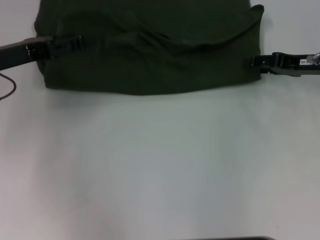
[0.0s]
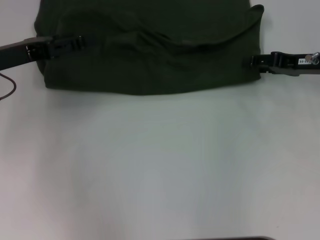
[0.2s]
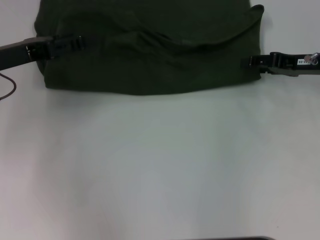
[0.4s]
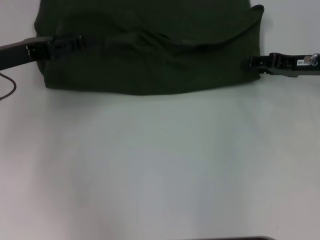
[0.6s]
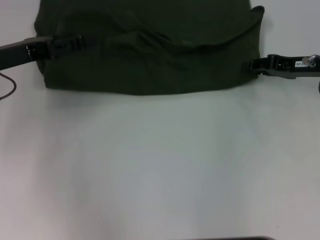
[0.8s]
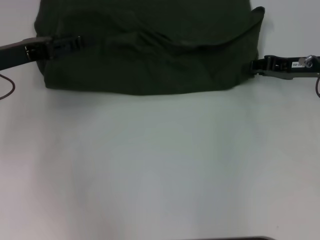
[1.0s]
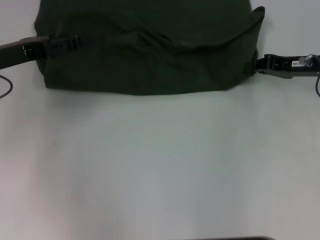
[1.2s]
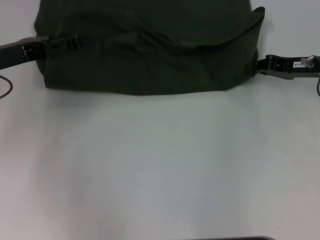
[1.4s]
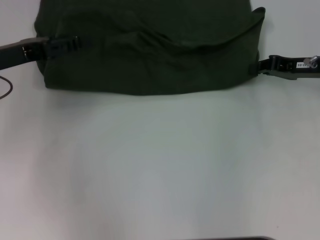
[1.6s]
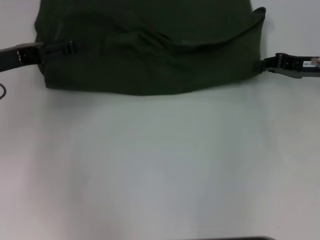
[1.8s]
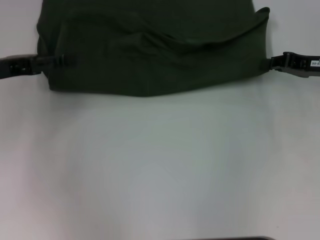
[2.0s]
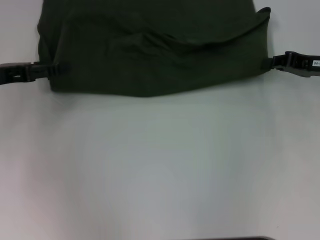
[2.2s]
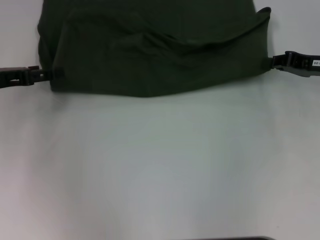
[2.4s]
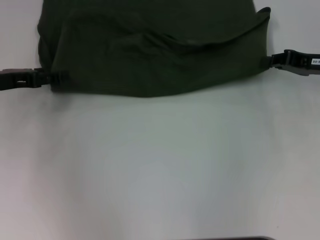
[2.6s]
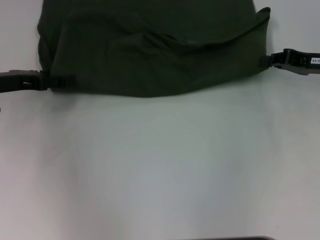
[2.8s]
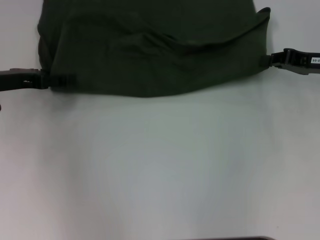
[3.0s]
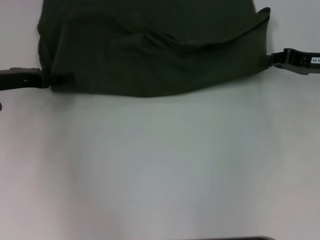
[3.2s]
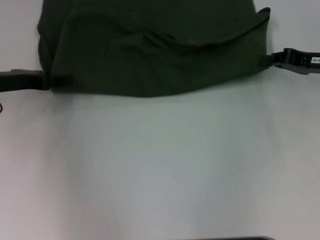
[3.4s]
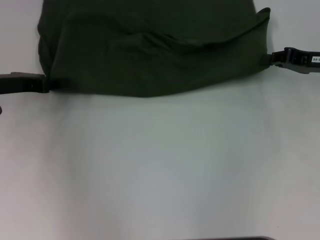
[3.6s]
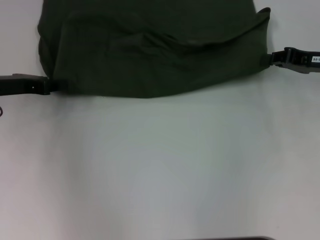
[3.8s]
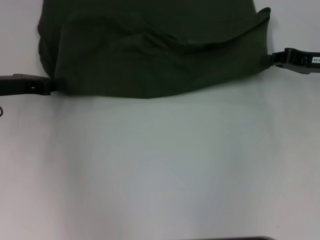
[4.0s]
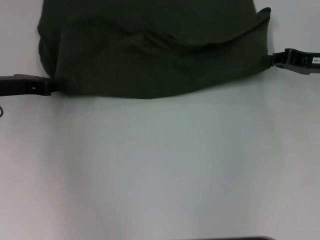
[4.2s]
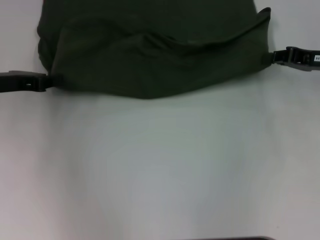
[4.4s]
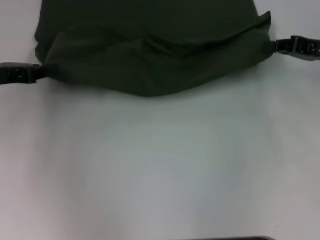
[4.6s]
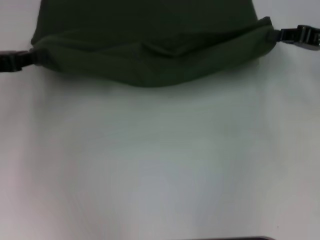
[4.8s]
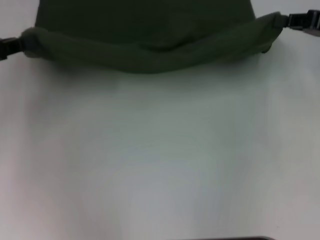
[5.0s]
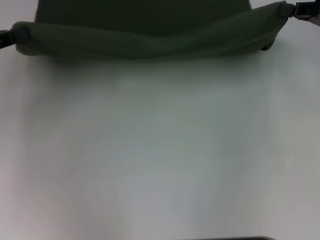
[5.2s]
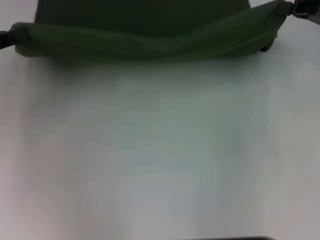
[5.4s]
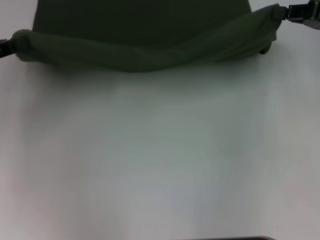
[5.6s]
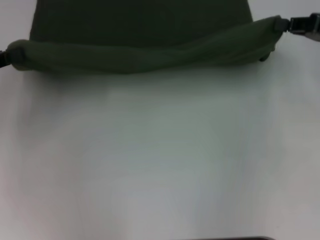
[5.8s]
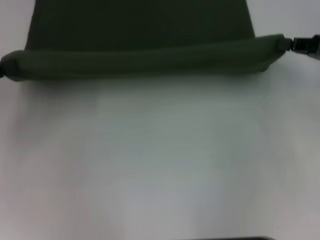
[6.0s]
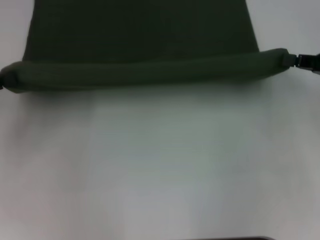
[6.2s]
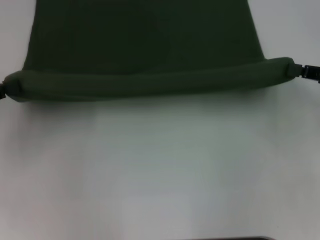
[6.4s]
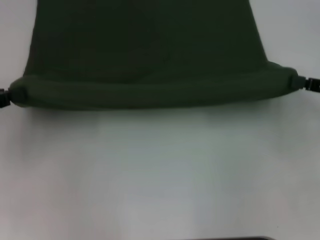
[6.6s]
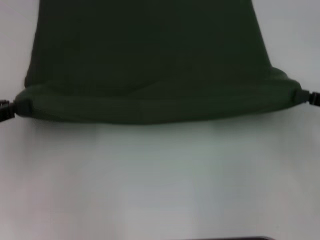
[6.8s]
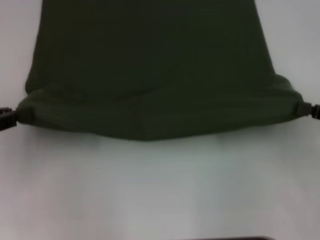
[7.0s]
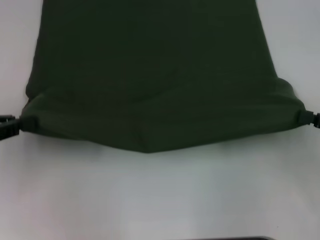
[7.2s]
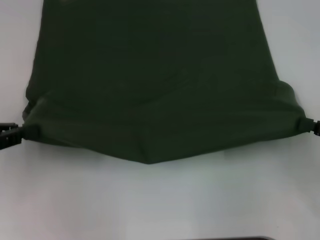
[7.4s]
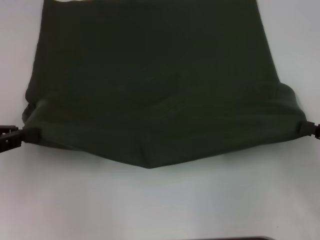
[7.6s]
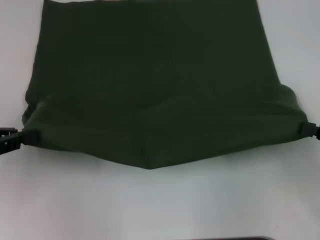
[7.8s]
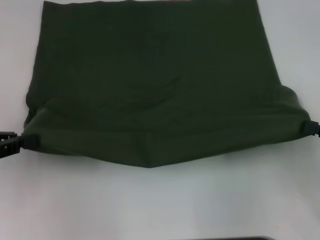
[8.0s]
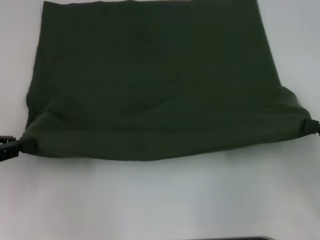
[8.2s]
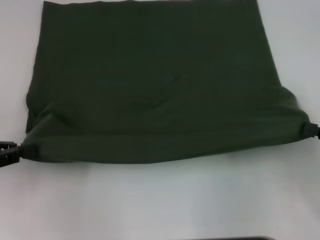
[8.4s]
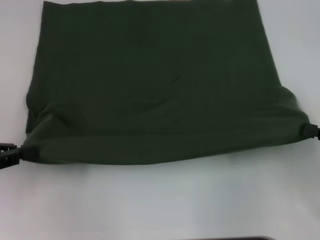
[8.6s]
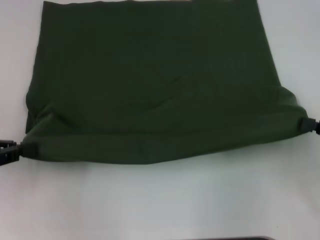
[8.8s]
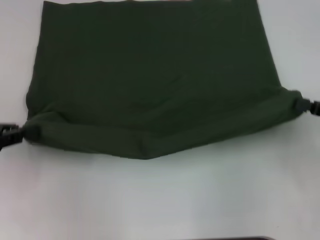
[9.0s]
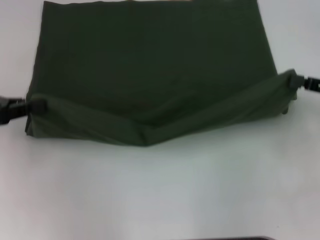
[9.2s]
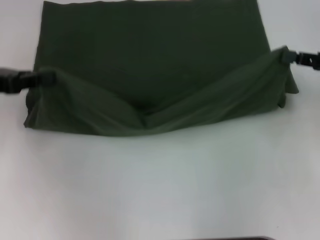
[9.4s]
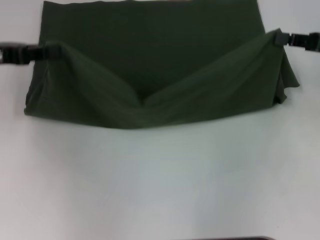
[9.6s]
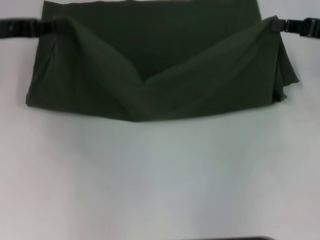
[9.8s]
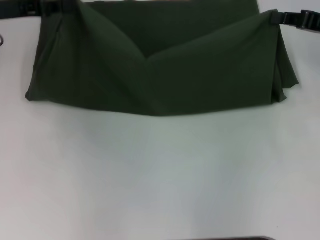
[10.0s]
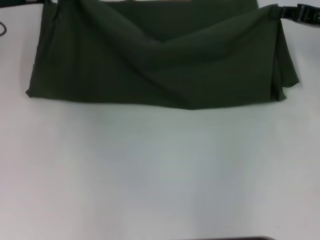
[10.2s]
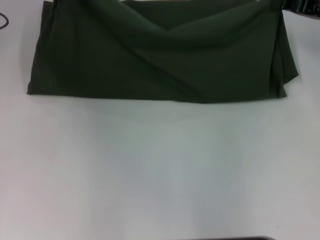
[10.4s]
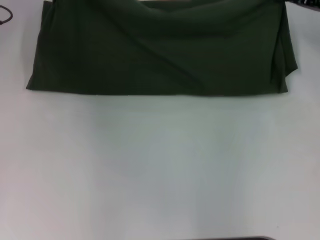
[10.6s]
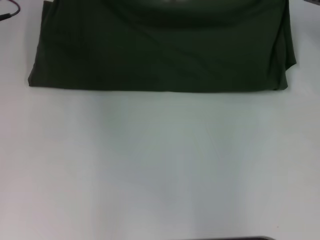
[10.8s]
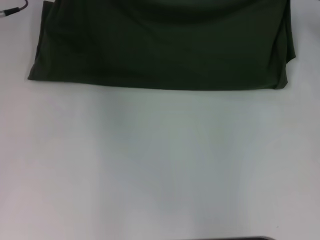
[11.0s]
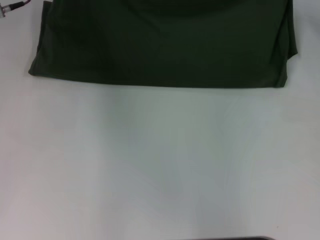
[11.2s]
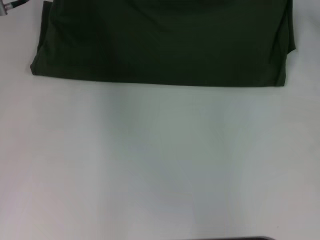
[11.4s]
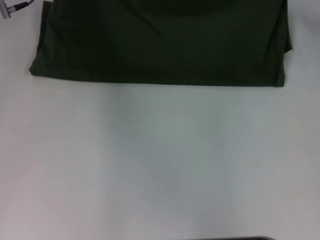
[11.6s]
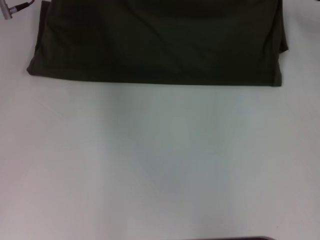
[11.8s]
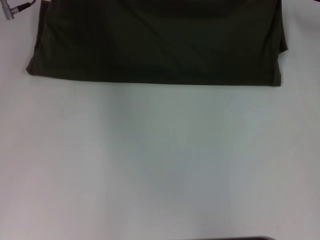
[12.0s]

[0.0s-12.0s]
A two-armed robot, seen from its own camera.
Step, 0.0s to 8.6s: Pull the clothes with your left hand.
Step, 0.0s to 8.6s: Pull the clothes with your right hand.
0.0s to 1.6s: The right gripper closes up.
3.0s to 4.4s: The left gripper closes.
4.4s to 6.0s: The left gripper heads to the left and backward, covering some 10 cm. Meanwhile the right gripper moves about 5 cm.
6.0s to 7.6s: The right gripper shifts roughly 10 cm backward.
7.6s to 9.0s: The grippers stay close to where they were, moving slightly.
9.0s to 10.4s: The left gripper shifts some 20 cm forward and to the right. The right gripper travels forward by approximately 15 cm.
10.4s to 12.0s: The left gripper ends up about 5 cm from where it was.

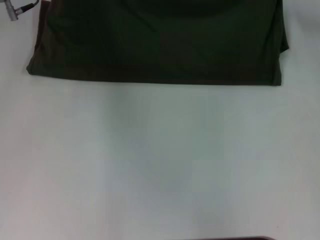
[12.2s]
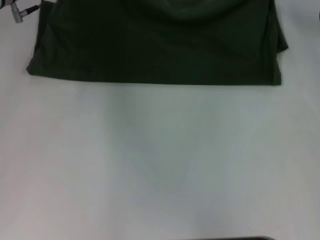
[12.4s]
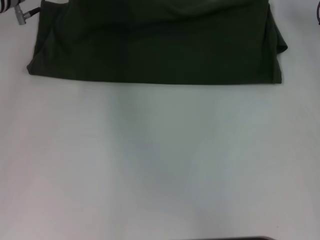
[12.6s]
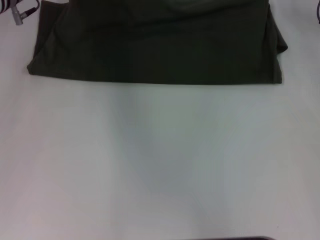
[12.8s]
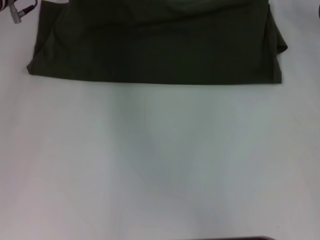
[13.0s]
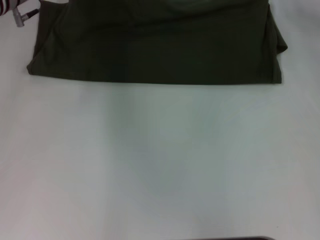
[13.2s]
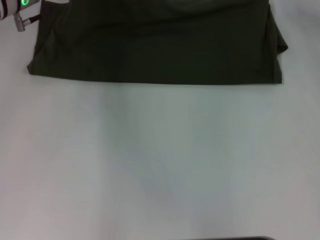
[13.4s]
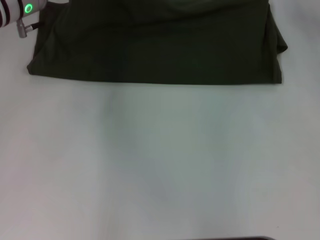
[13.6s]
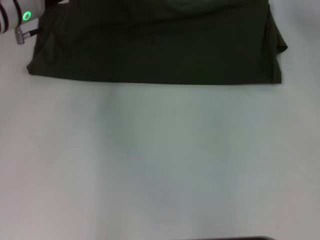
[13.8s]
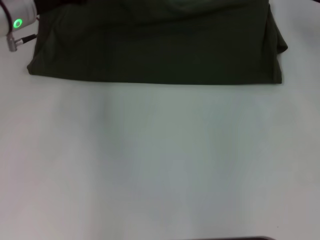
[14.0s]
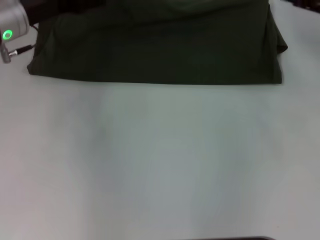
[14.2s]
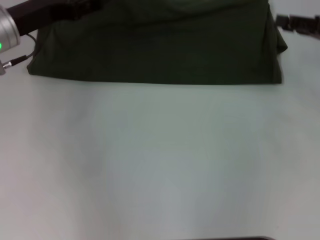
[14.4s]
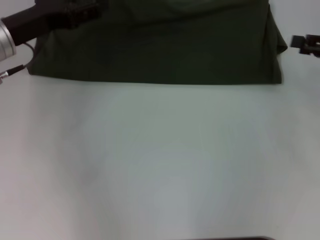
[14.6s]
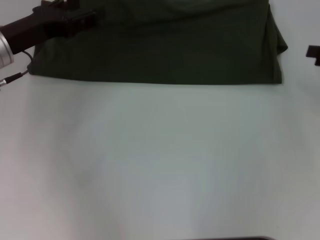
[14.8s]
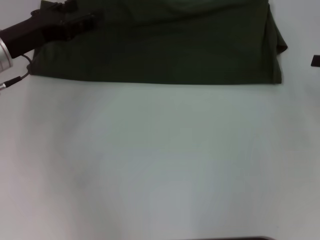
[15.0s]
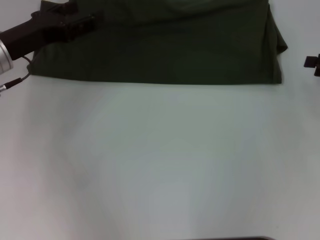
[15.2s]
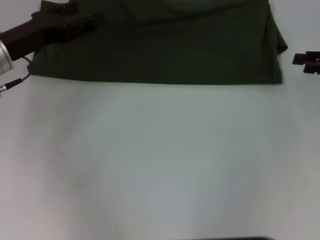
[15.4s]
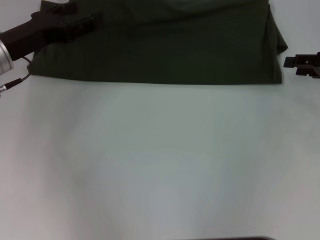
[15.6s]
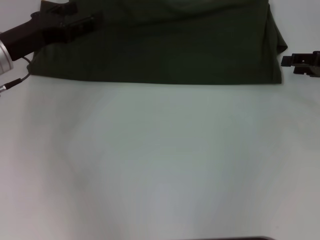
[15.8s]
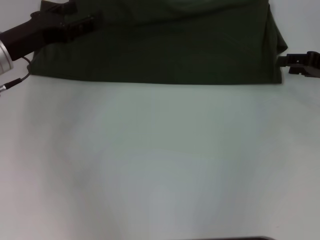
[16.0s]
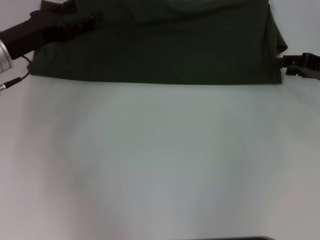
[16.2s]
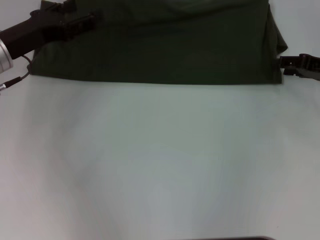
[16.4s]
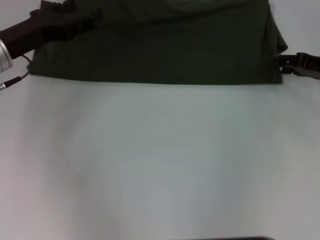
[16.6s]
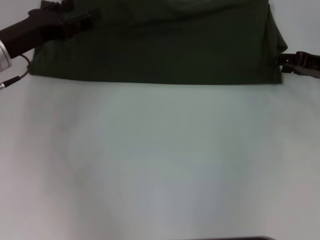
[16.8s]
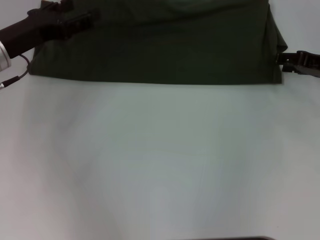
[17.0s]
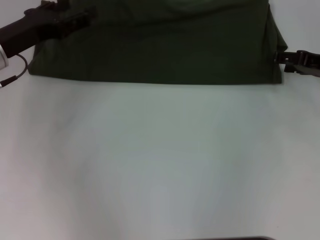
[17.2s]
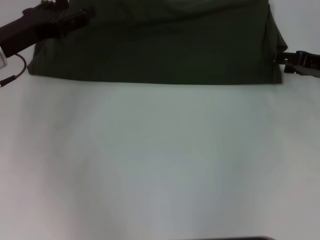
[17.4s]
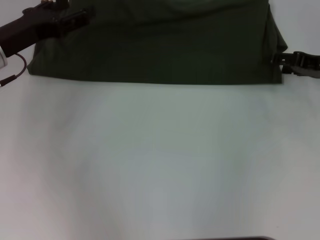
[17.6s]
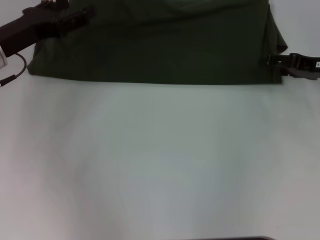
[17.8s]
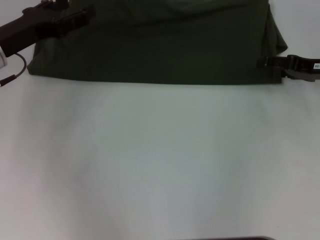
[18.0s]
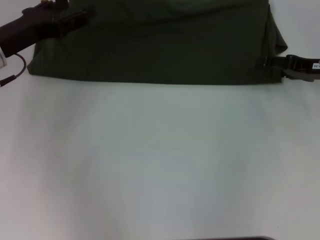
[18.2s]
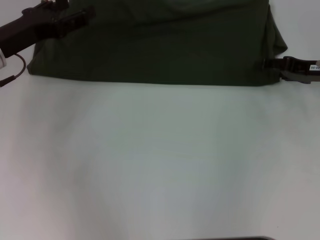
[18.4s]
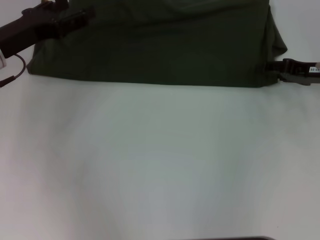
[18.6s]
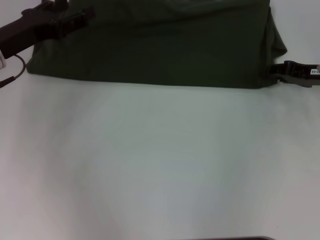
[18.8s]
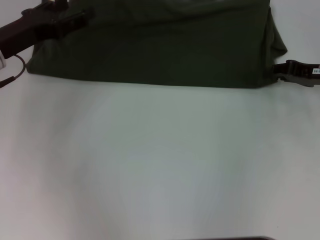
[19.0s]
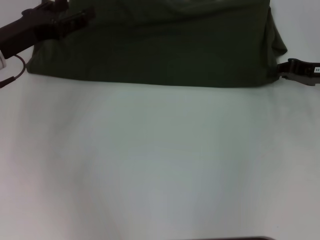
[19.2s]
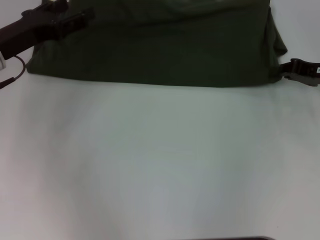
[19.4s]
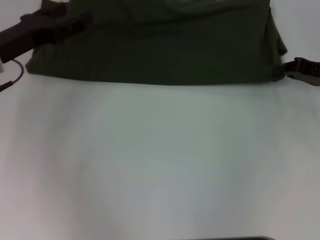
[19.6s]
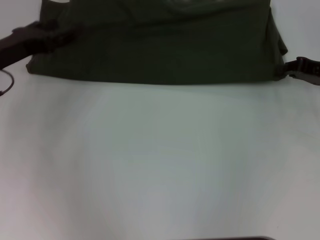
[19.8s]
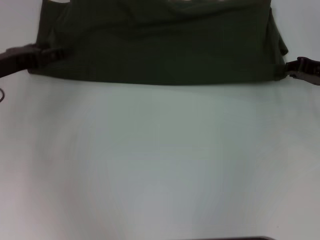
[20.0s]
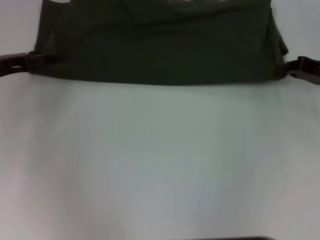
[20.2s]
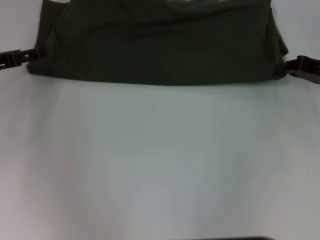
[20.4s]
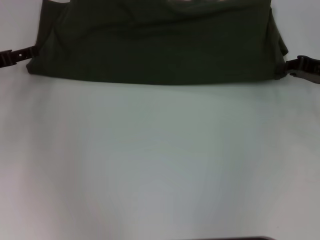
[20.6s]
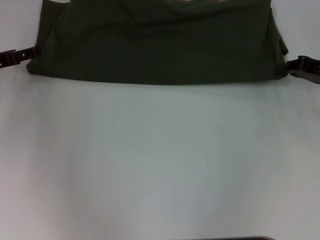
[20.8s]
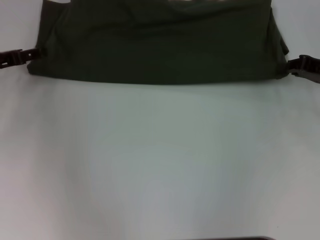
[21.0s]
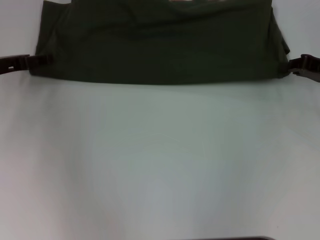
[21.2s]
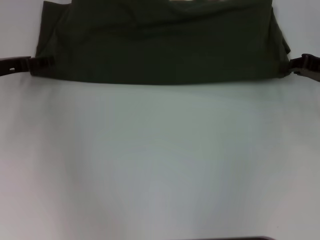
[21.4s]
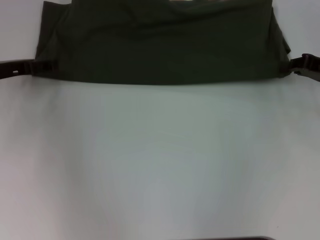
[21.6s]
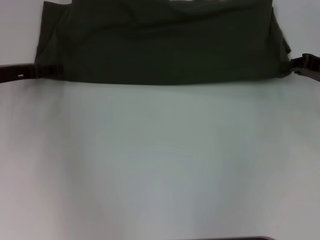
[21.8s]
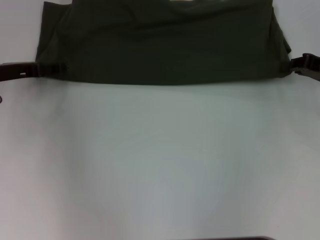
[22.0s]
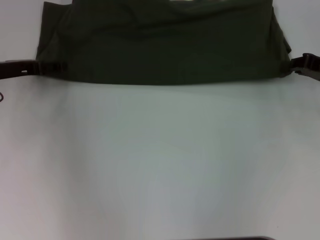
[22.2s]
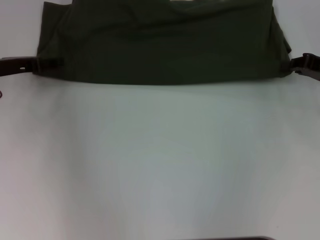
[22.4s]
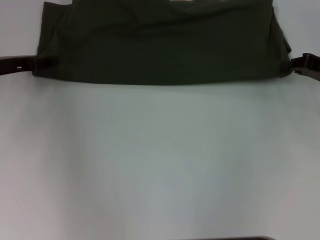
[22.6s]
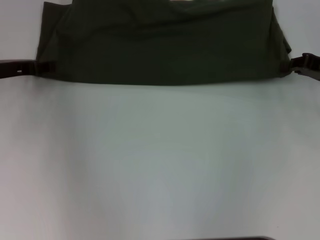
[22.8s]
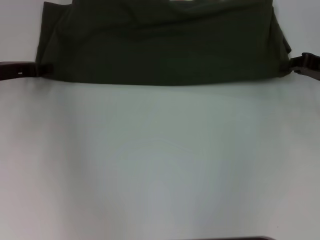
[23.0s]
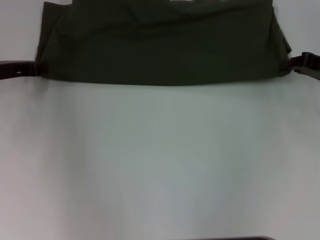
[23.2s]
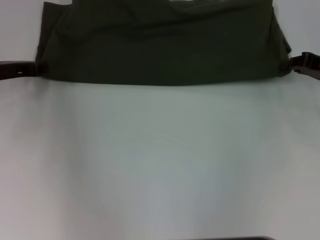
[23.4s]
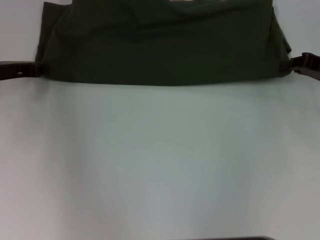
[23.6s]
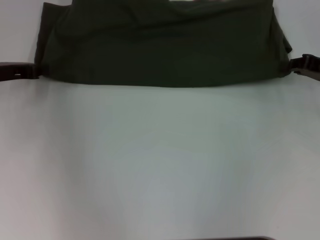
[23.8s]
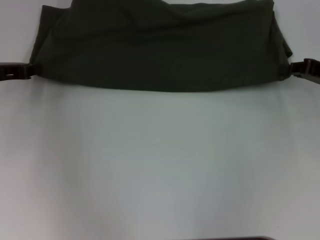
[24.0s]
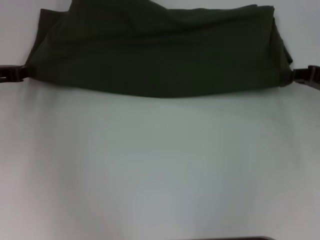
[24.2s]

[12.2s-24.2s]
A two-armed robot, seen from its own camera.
12.2s to 13.8s: The right gripper opens, while the left gripper opens up.
13.8s to 15.2s: The right gripper is displaced backward and to the right by some 15 cm; the left gripper moves backward, approximately 10 cm.
15.2s to 16.6s: The right gripper travels to the left by roughly 5 cm.
16.6s to 18.2s: Both grippers stay put.
18.2s to 19.8s: The right gripper closes up.
19.8s to 21.2s: The left gripper changes place by some 5 cm.
21.2s to 22.6s: The grippers move only a little.
22.6s to 24.2s: The left gripper closes up.
